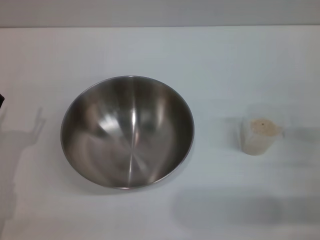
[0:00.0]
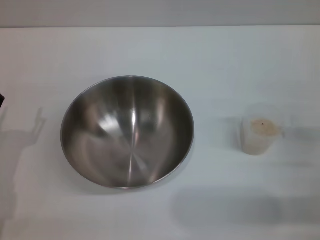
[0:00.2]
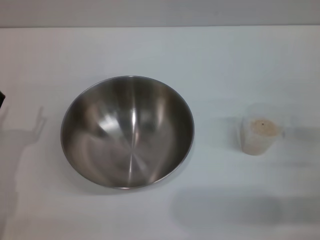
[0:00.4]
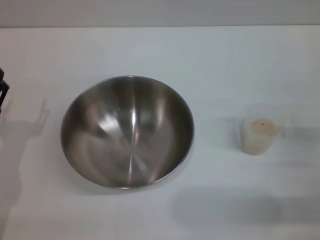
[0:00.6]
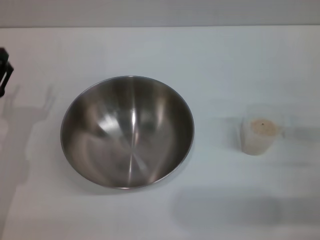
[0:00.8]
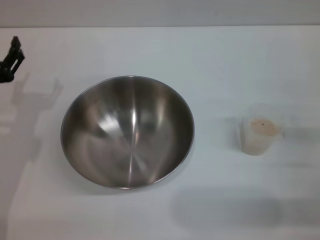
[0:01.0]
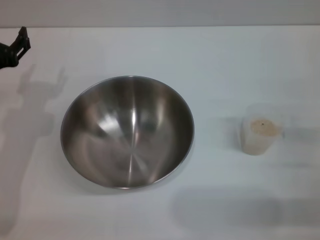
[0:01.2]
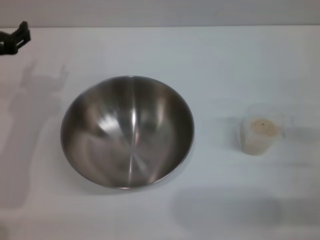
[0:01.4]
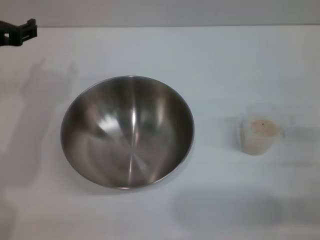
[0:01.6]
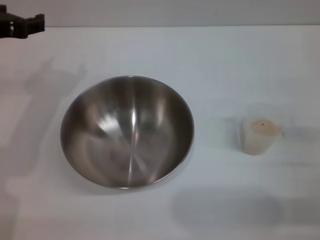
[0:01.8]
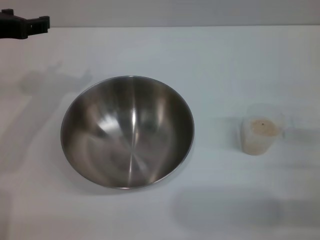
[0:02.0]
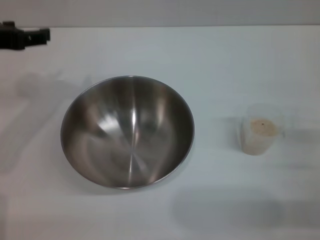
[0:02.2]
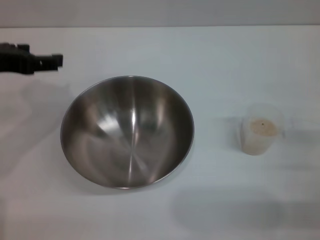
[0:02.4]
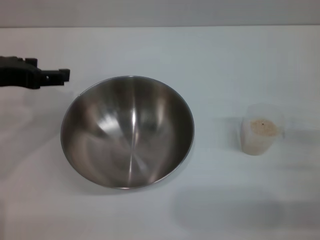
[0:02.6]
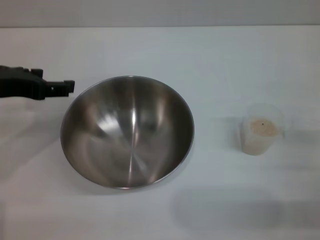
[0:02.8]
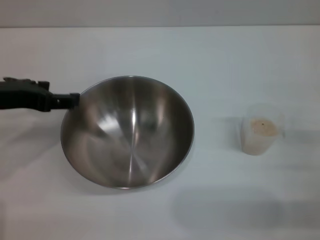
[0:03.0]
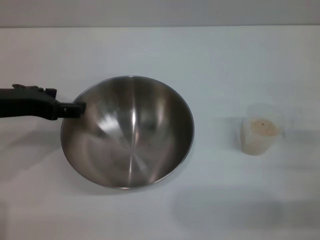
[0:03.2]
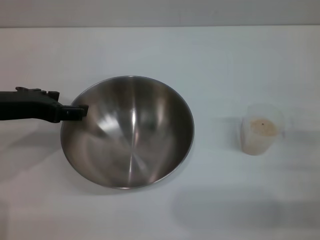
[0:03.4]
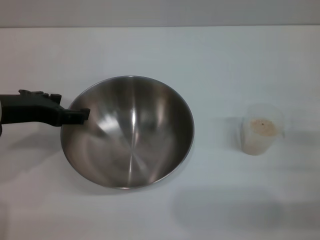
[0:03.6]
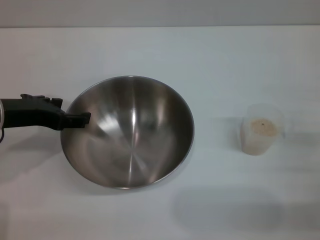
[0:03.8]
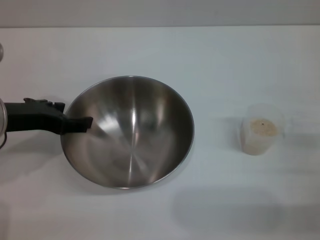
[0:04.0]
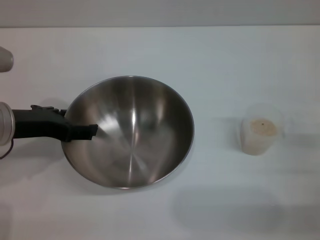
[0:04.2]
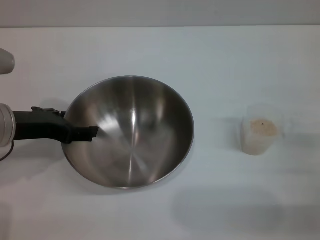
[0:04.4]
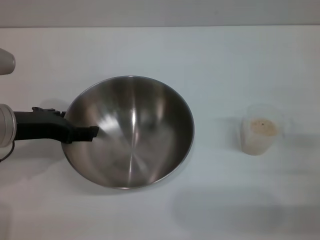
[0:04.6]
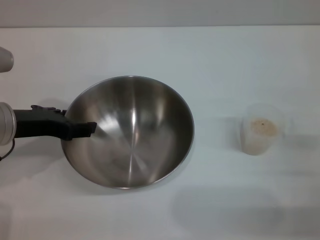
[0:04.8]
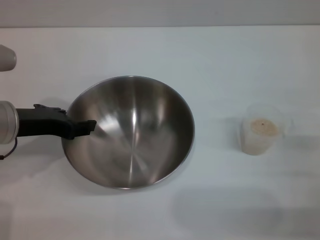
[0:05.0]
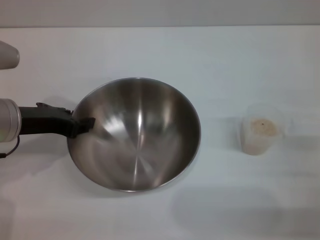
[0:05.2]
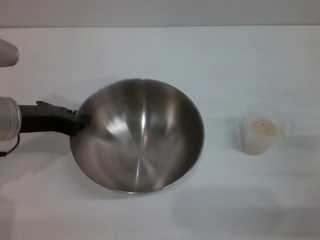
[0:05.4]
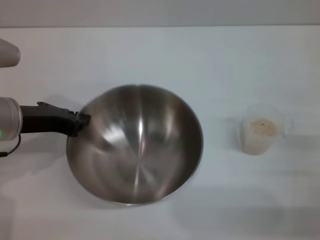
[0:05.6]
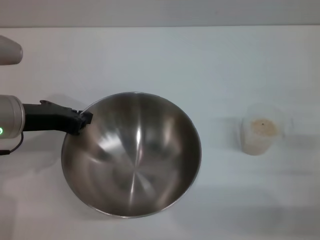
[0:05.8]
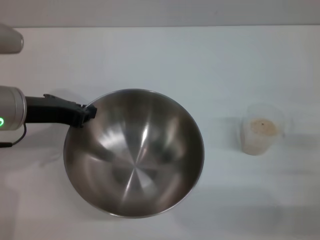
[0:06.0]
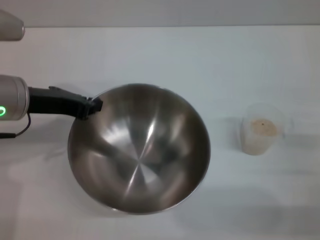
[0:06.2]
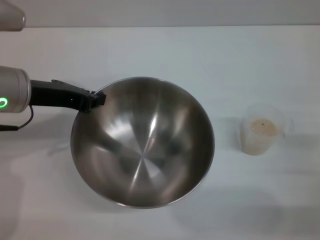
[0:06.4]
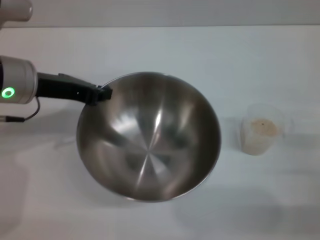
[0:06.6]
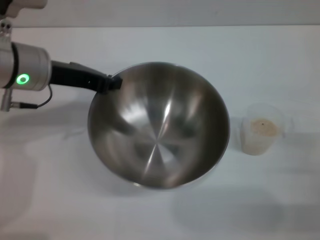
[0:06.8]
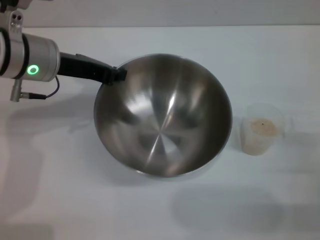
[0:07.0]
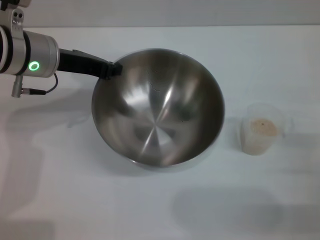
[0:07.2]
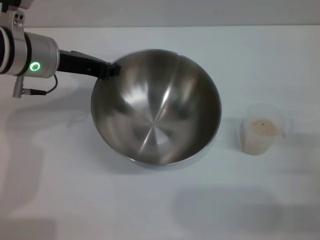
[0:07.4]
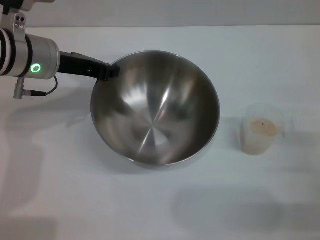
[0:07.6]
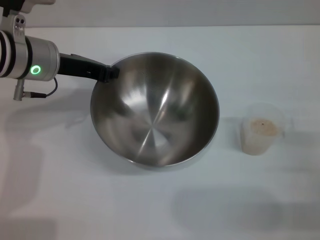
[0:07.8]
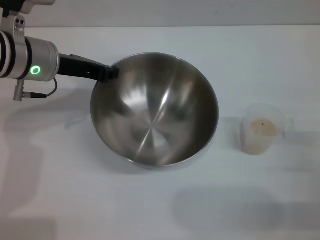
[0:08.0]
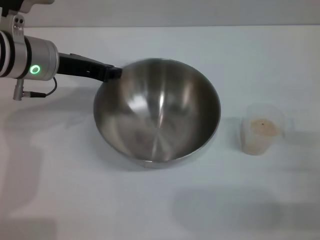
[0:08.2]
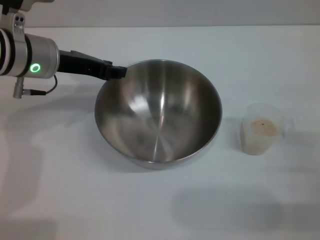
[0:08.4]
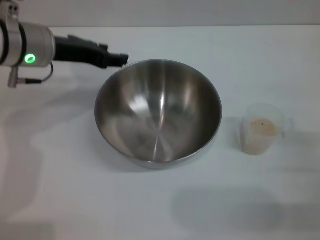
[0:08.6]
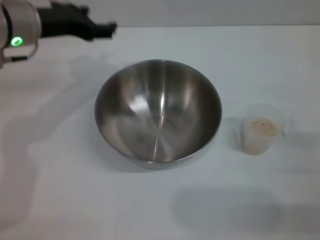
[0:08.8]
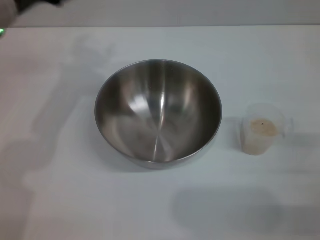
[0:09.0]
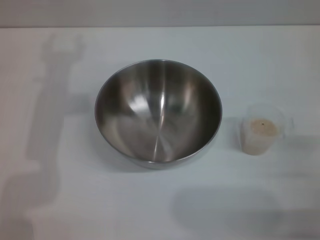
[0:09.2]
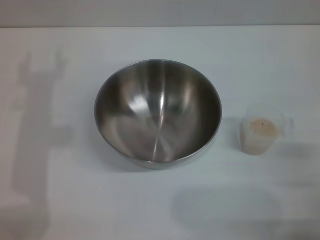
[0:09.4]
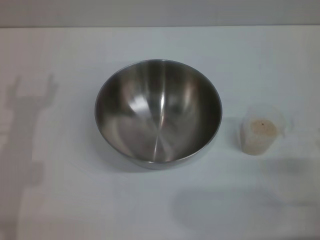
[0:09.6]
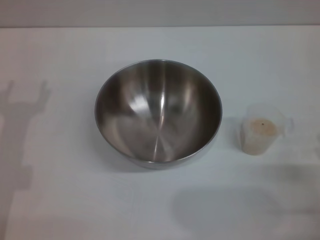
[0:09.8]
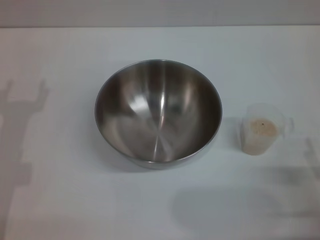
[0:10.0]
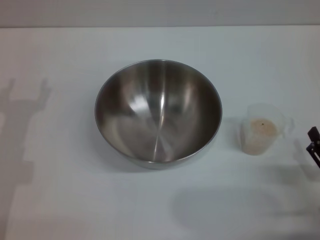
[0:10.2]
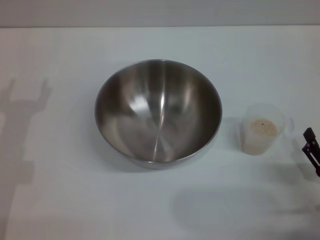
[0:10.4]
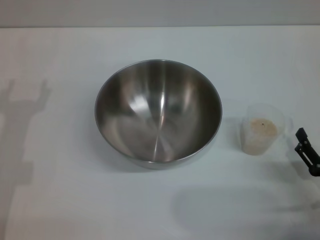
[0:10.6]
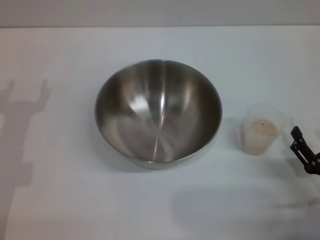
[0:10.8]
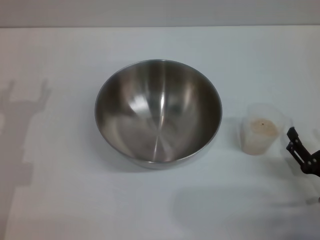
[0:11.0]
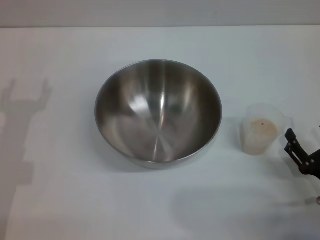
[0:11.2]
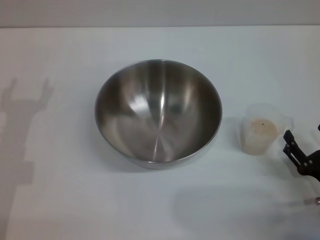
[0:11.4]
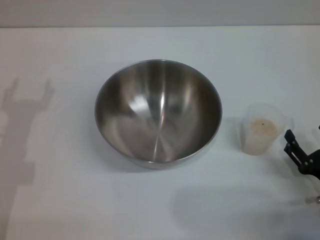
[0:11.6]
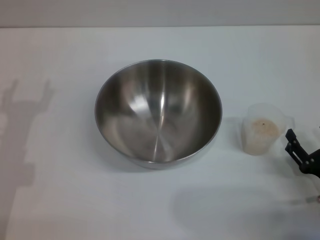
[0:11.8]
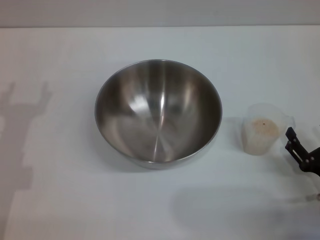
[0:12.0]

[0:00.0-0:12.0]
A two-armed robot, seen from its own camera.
Task of the whole recording: Place the bowl in the middle of the table with one hand and pour the rice from the grain cup into it with the other hand.
Step, 0:00.0 to 0:06.6: Pick up the bowl with the left gripper.
Step, 0:06.8 to 0:09.0: Place the bowl in the center of view with the left gripper.
0:00.0 to 0:01.6: The left gripper travels upward and forward by roughly 20 cm.
0:03.0 to 0:04.4: The grippers move only a little.
0:04.4 to 0:06.0: The left gripper closes its fingers.
0:06.0 to 0:07.6: The left gripper goes some 10 cm forward.
0:07.6 to 0:09.0: The left gripper ends up some 5 cm from where it was, and opens.
0:09.0 to 0:10.4: The left gripper shifts some 20 cm downward, backward and to the left. The right gripper changes place by roughly 5 cm.
0:10.4 to 0:12.0: The grippers stay close to where they were, moving slightly.

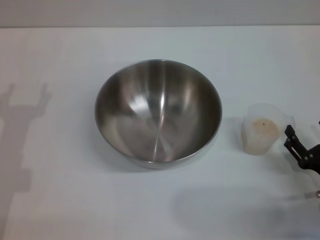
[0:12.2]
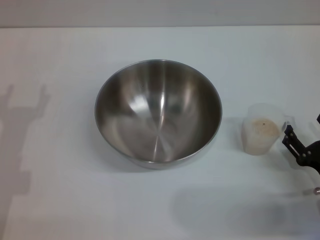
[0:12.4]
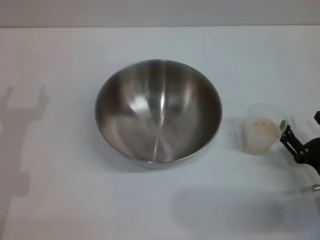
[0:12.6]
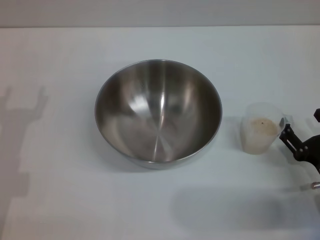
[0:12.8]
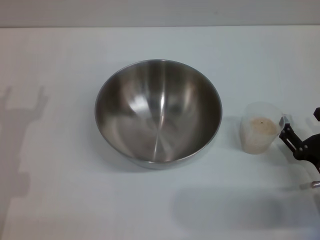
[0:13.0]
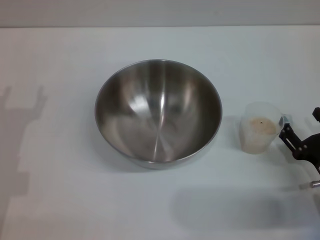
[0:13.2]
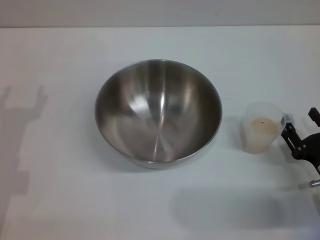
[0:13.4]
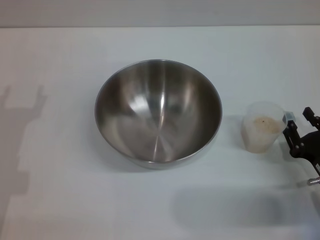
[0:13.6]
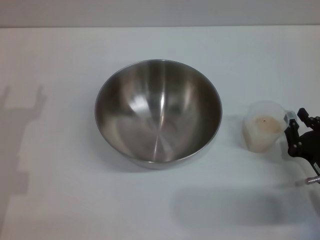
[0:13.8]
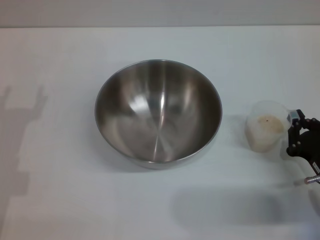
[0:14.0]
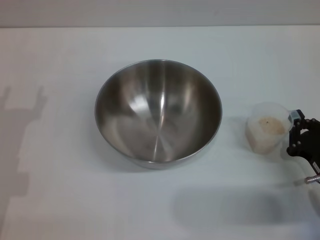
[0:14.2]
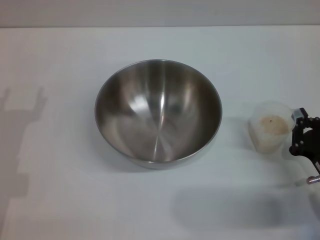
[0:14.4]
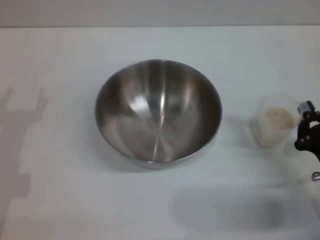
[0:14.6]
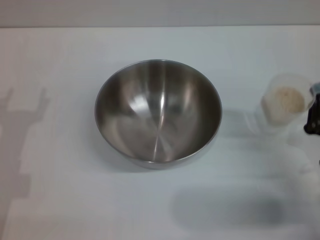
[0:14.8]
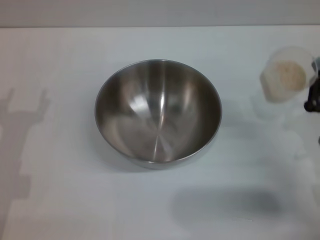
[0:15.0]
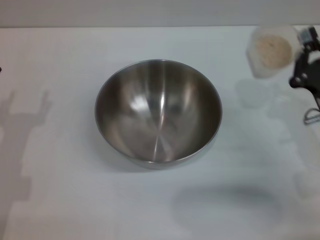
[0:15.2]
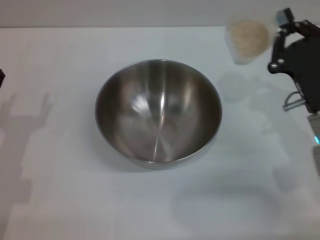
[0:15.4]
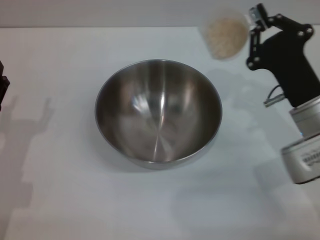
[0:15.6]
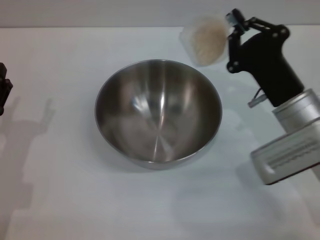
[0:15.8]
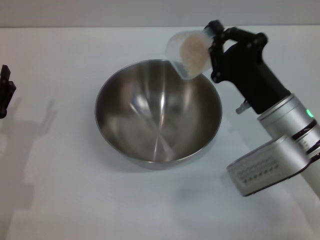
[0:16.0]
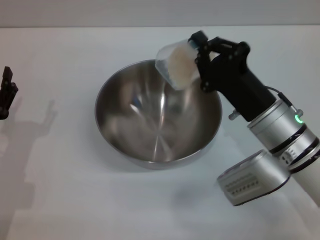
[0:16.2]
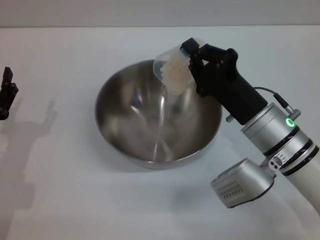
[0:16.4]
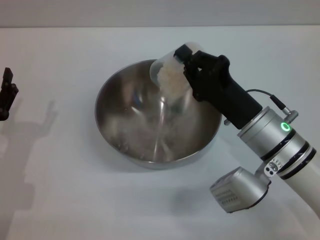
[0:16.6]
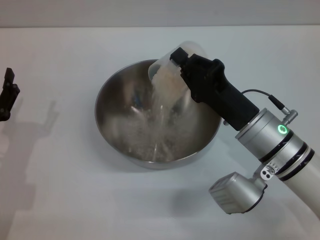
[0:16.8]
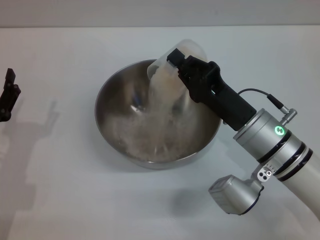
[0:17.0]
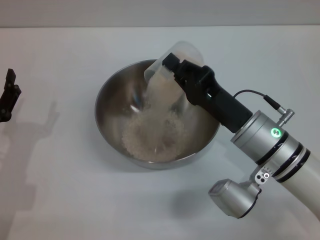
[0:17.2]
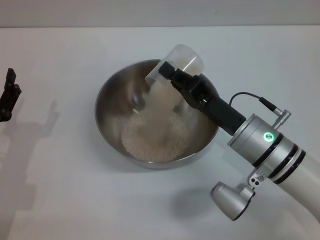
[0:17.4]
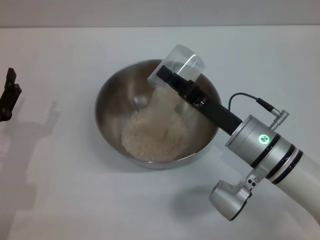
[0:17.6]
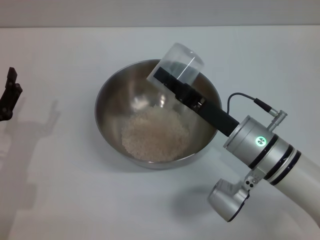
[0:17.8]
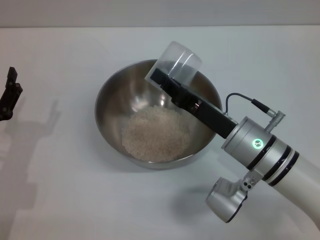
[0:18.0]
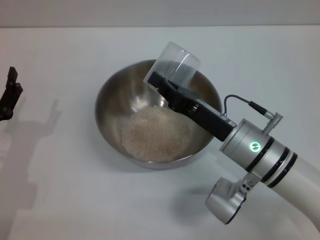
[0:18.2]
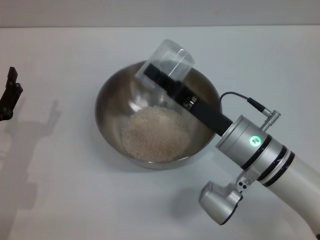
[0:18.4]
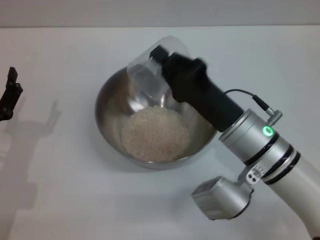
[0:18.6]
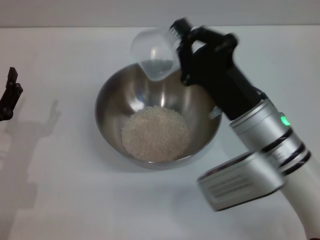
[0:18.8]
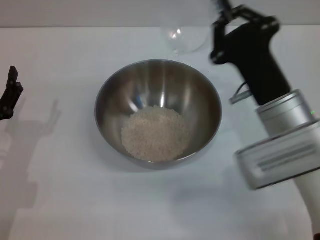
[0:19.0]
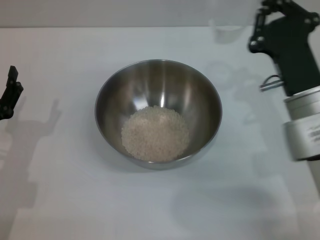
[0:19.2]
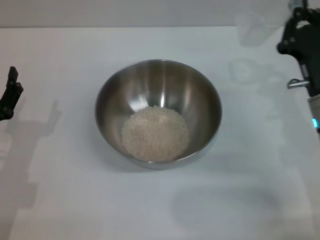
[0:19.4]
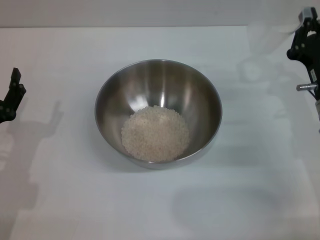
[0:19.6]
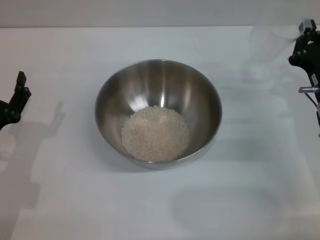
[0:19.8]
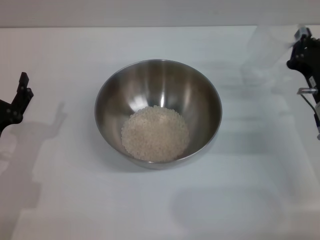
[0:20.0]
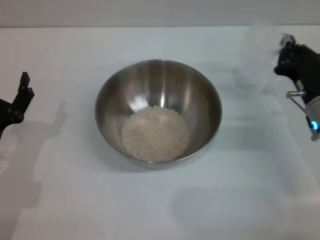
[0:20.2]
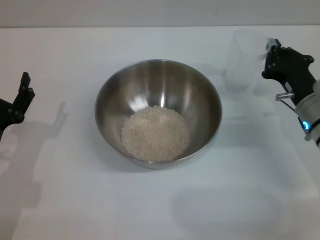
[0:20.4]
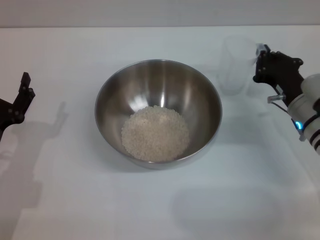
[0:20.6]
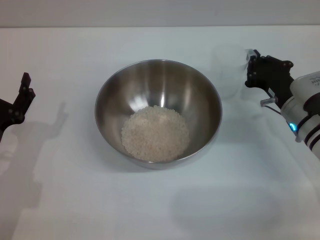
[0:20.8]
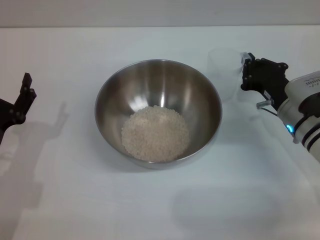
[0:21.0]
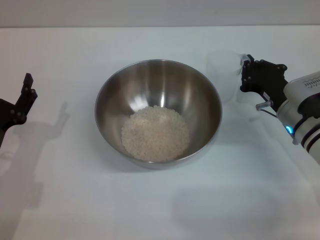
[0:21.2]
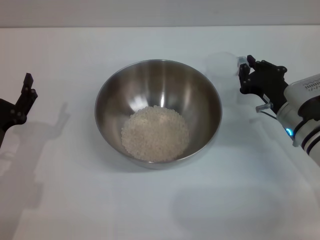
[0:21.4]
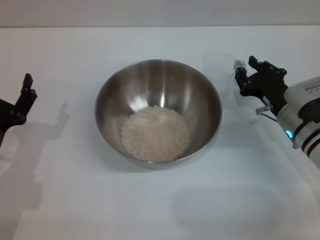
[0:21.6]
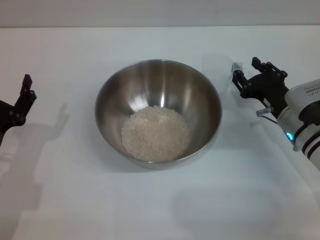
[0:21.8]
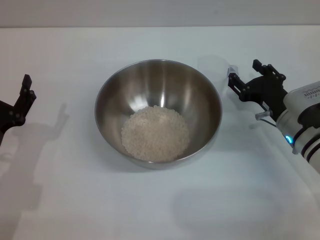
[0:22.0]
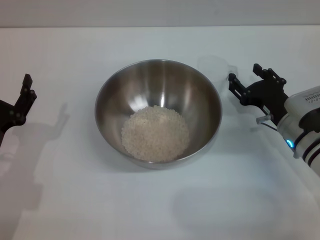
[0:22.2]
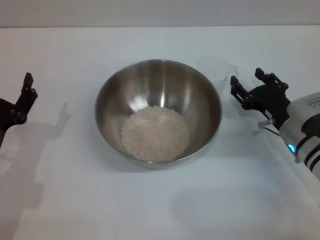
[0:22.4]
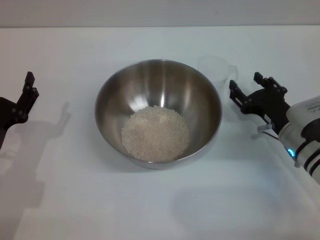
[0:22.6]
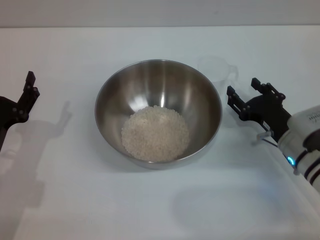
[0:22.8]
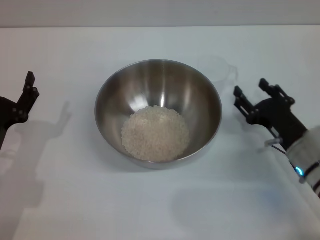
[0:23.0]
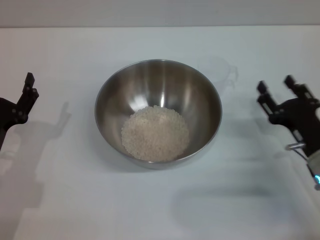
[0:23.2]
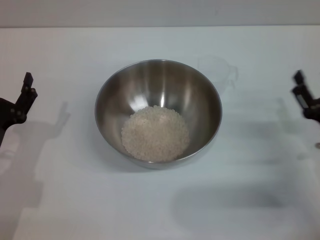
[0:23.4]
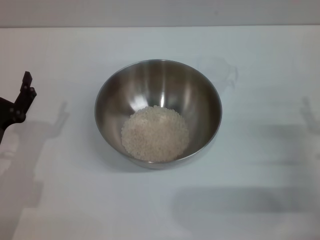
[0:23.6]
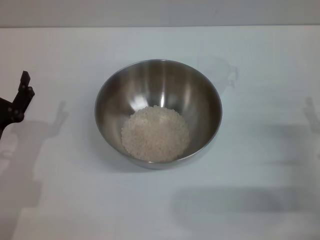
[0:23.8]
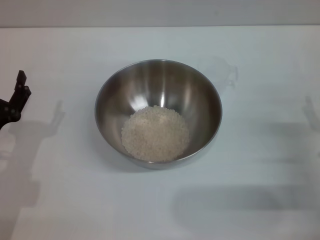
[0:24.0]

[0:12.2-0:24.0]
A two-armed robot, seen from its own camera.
Task of the whole recording: Place the bowl in the middle of the table with one hand and pour the rice from the grain cup into it with the other hand.
Step, 0:12.2 to 0:15.0: Pick up the cup with rice in it with the right gripper.
Step, 0:15.2 to 0:17.6: Pour the rice from the cup into the bowl with the right gripper.
Step, 0:17.8 to 0:23.0: Place the cup on the table with the right gripper.
0:12.2 to 0:13.6: The grippers stay close to where they were, moving slightly.
0:13.6 to 0:15.2: The right gripper moves upward and forward, roughly 10 cm, and closes up.
0:15.2 to 0:16.6: The right gripper goes approximately 10 cm to the left.
0:18.2 to 0:19.6: The right gripper travels to the right by roughly 10 cm.
0:19.6 to 0:21.0: The right gripper moves about 5 cm.
0:21.0 to 0:22.6: The right gripper opens up.
0:22.6 to 0:24.0: The right gripper shifts some 10 cm backward and to the right.
